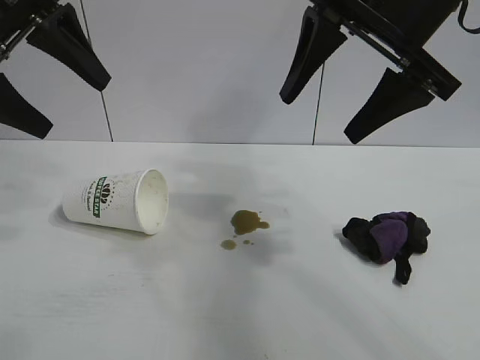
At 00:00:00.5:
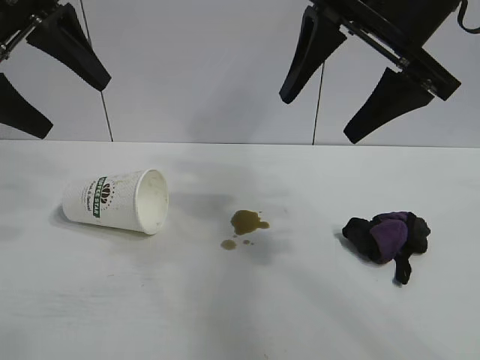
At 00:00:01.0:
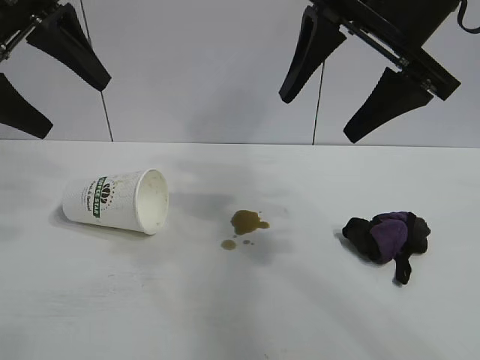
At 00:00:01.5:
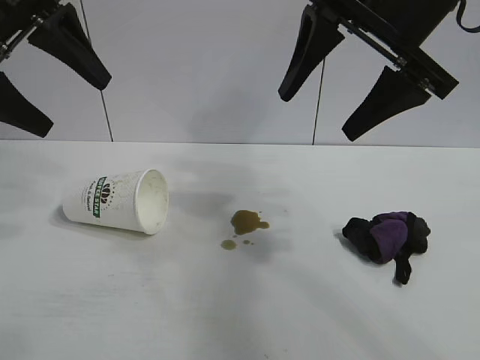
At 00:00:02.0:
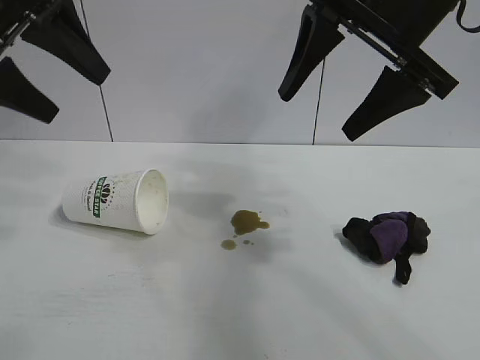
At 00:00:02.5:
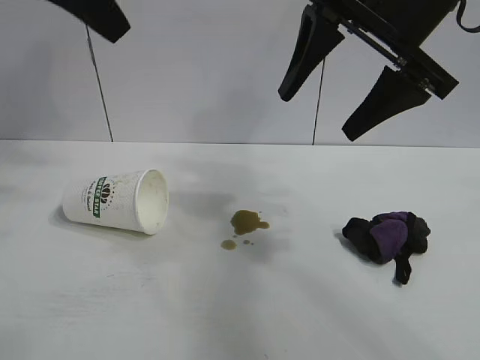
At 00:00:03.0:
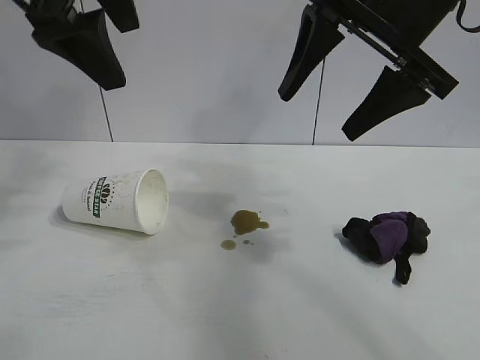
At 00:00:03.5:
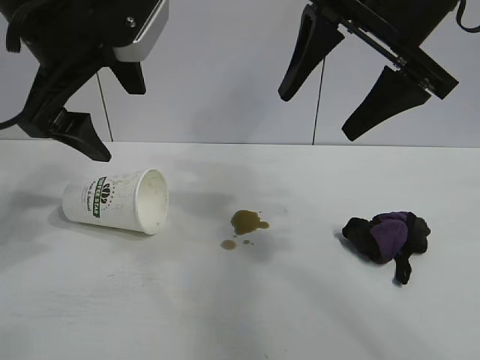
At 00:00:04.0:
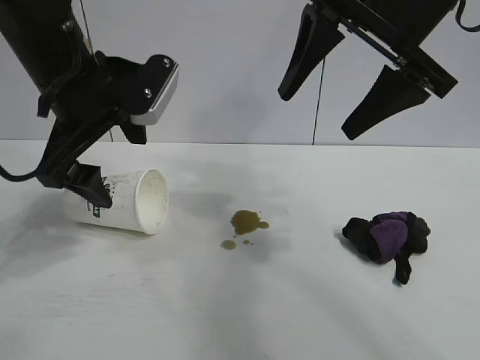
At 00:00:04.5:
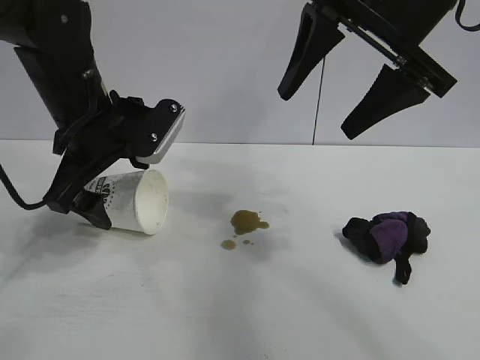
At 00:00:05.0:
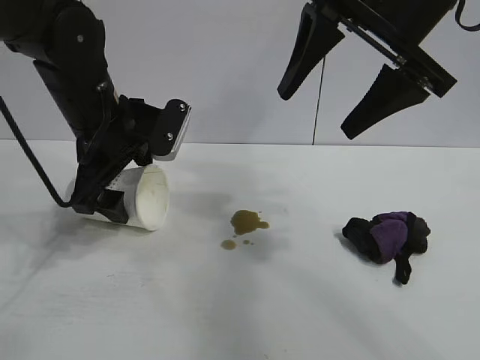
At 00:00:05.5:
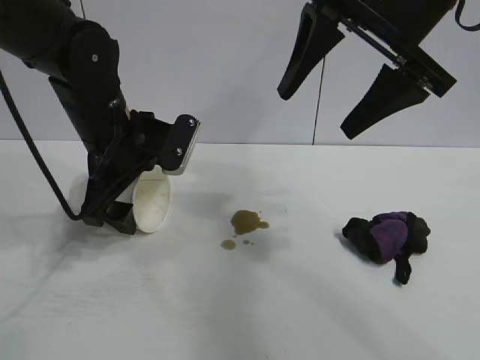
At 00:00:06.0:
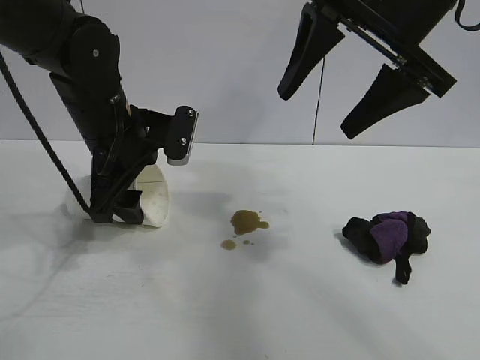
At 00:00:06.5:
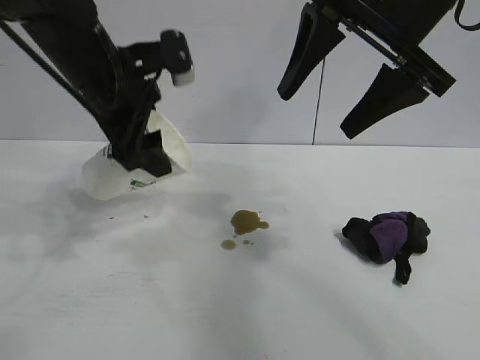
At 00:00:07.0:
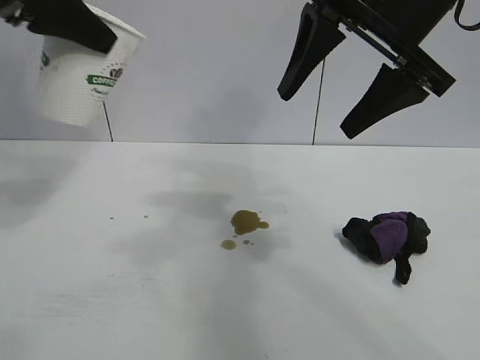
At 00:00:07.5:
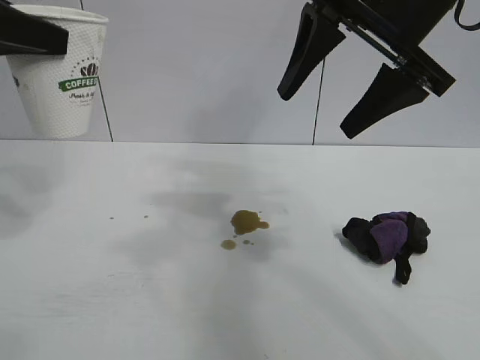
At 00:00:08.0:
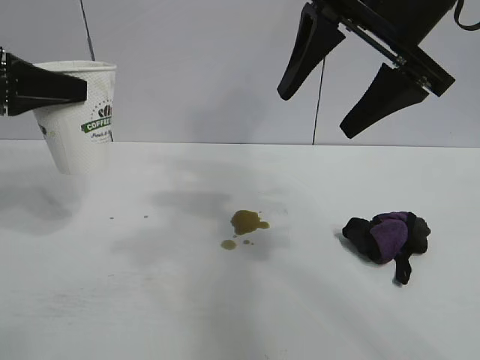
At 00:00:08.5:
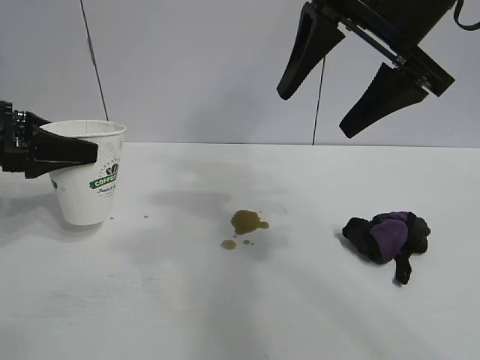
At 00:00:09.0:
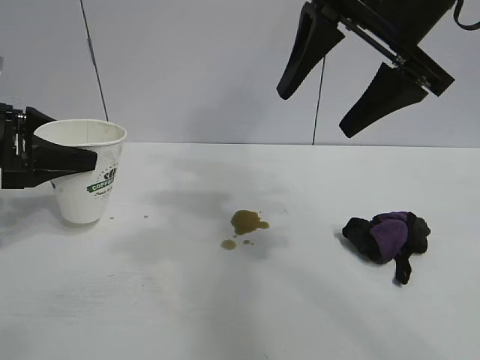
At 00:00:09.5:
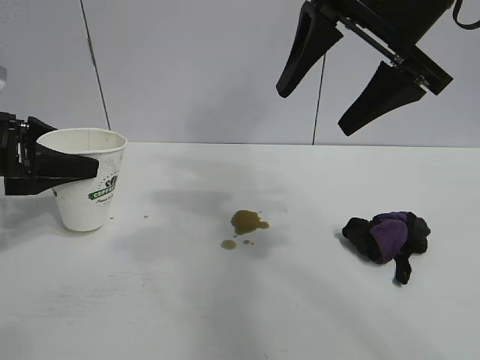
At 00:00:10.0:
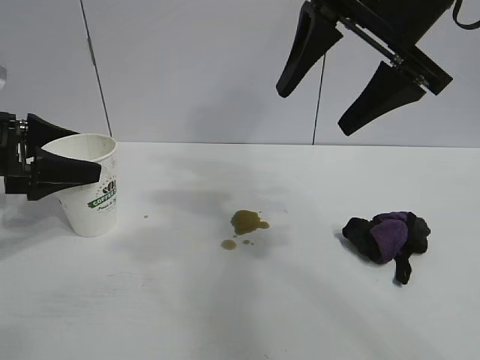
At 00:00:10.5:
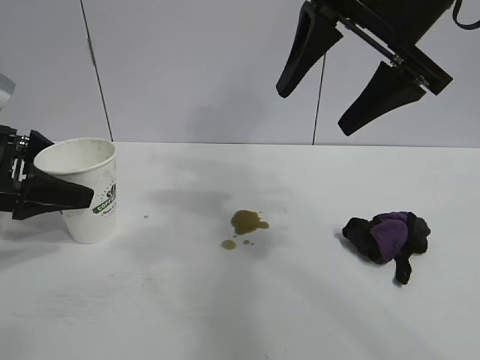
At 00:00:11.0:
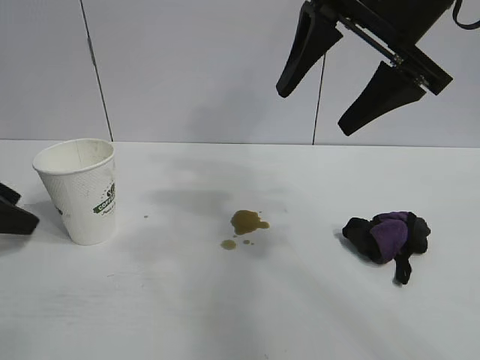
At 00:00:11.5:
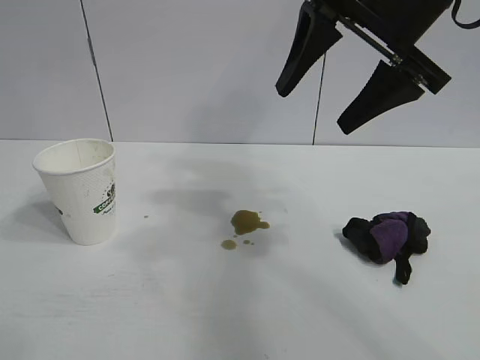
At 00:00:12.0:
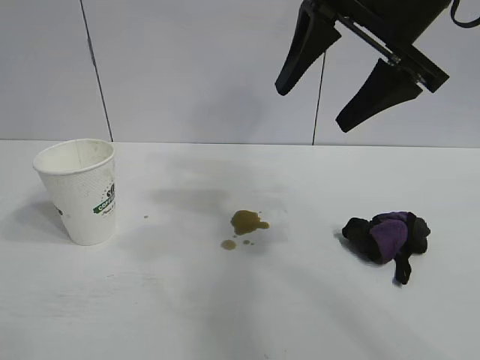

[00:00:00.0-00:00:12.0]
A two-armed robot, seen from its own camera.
Task of the whole recording: the left gripper pick up the fallen cup and place it upright, the right gripper grasp the black rag and wipe the stain on the table, the right gripper put the black rag back in its original position.
Step, 00:00:02.0 to 00:00:06.0: Grasp the paper cup with left gripper.
Step, 00:00:06.5 to 00:00:09.5: Stand the paper cup upright with left gripper.

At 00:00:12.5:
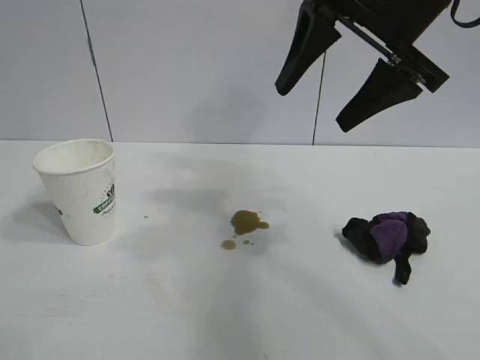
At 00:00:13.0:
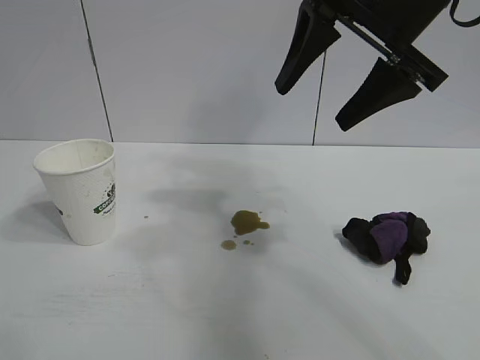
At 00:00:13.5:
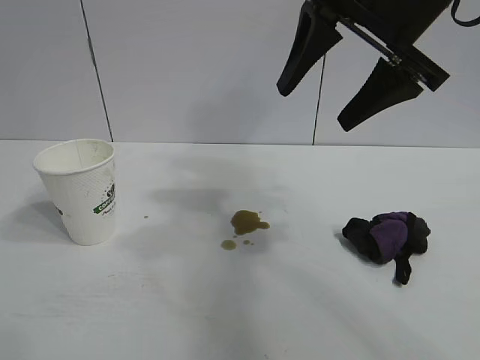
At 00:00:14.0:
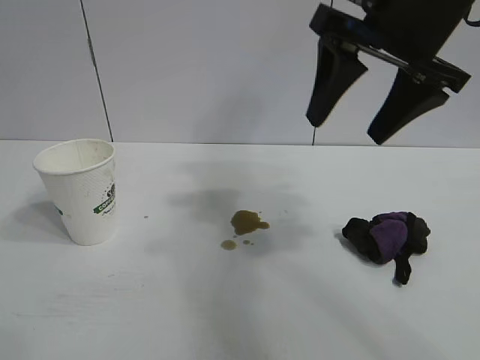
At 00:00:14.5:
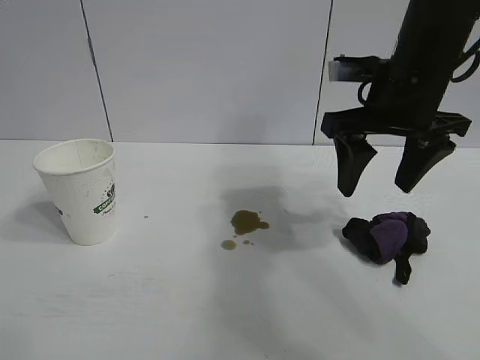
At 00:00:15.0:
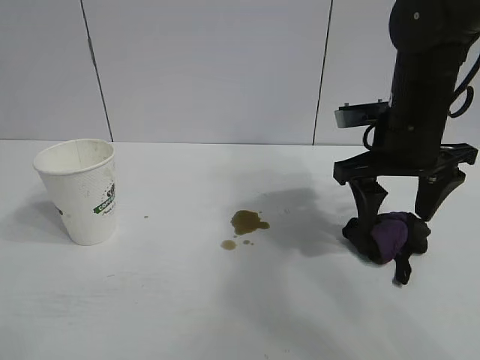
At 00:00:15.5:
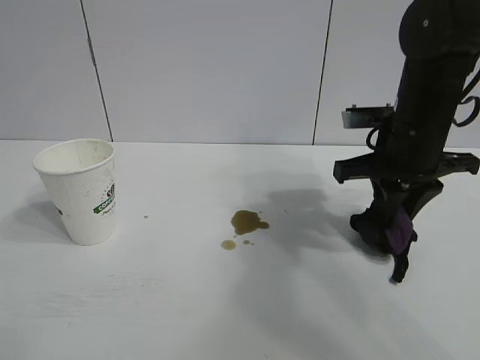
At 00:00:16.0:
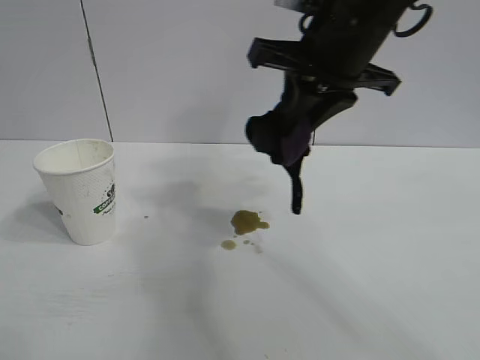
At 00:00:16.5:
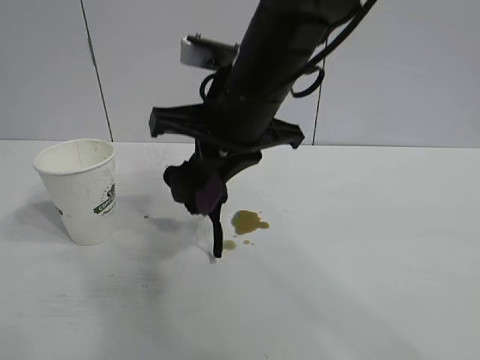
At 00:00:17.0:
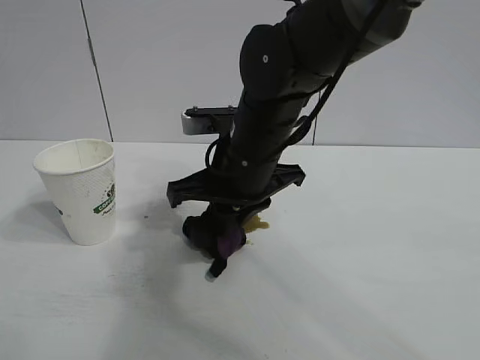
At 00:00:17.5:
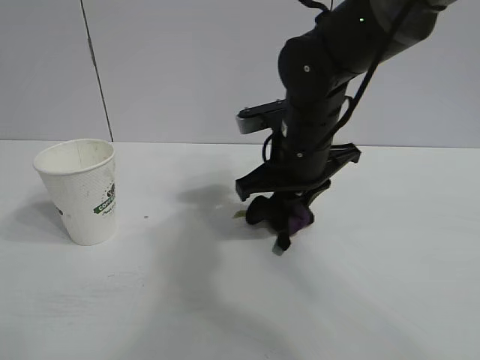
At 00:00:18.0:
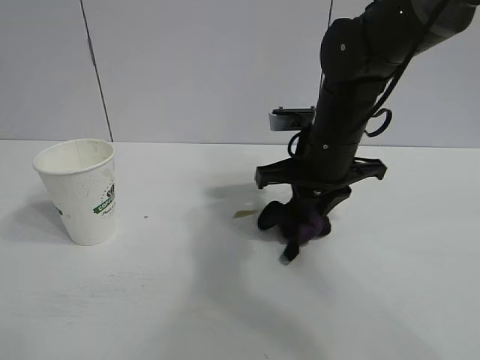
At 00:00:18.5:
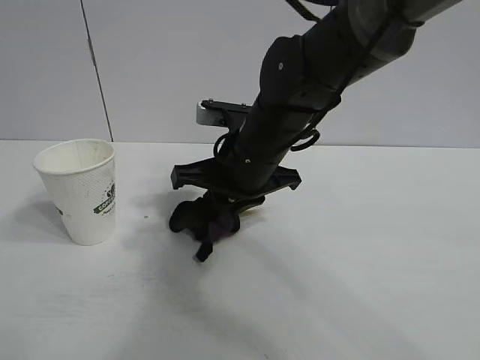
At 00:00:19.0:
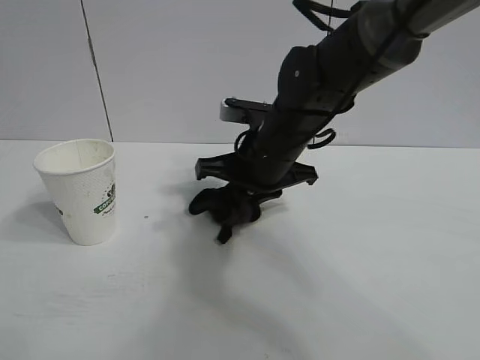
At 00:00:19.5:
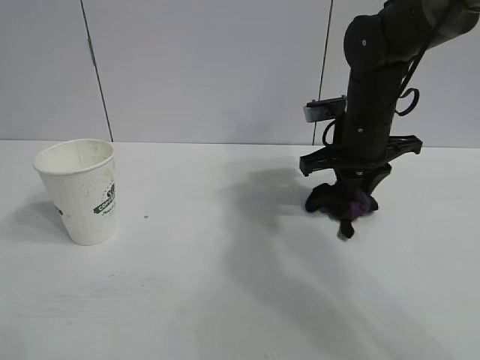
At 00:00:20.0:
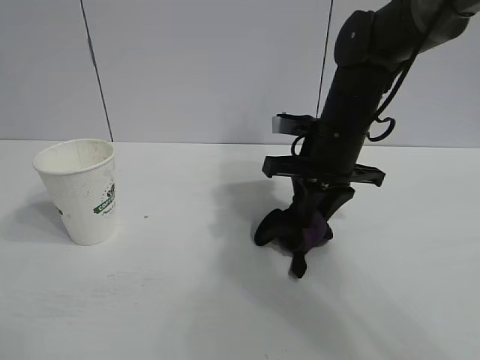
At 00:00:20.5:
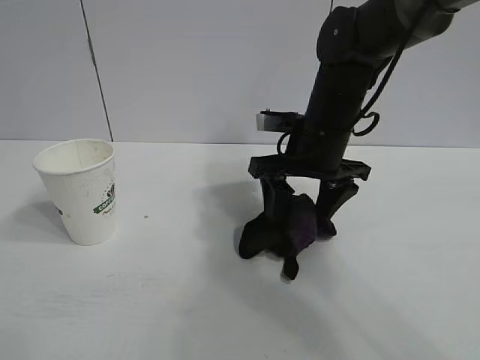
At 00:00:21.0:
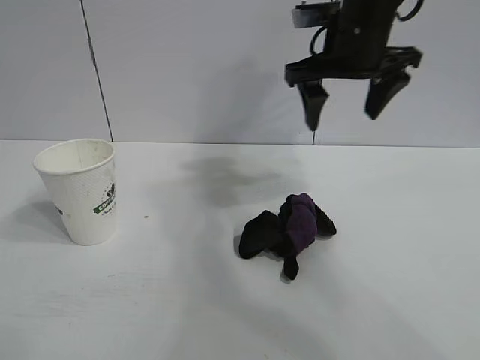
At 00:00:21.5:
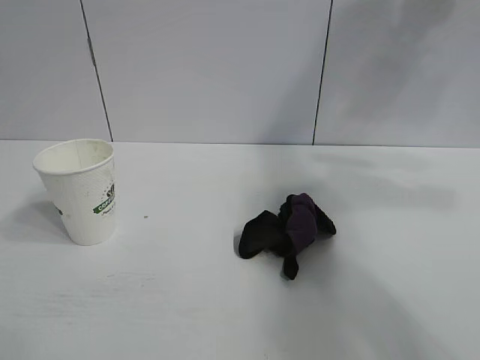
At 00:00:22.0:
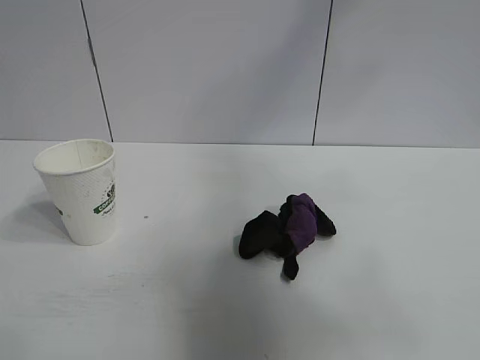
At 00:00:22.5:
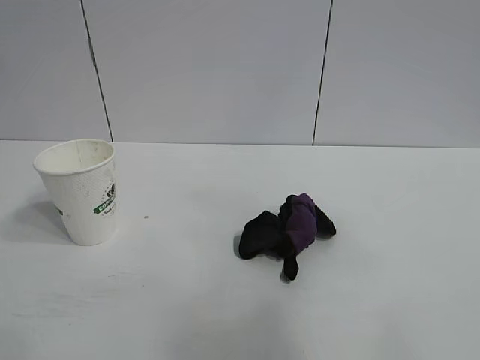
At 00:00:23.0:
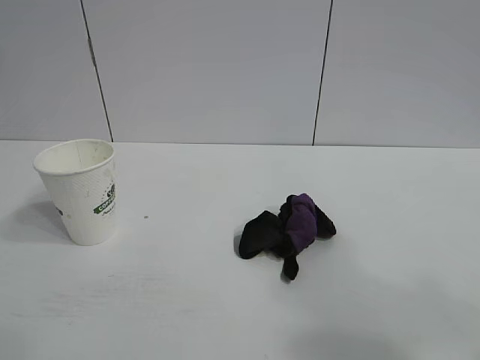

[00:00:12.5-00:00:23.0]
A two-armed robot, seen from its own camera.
Task of the whole recording: the left gripper pick up the fallen cup and place it upright, the right gripper grasp the black rag and wipe the stain on the table, the right gripper put the black rag back in its original position.
Step, 00:00:12.5 to 00:00:15.0: Grasp the rag with right gripper.
Step, 00:00:15.5 to 00:00:20.0: Wipe the stains off the table with the rag with right gripper.
